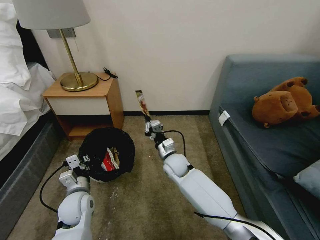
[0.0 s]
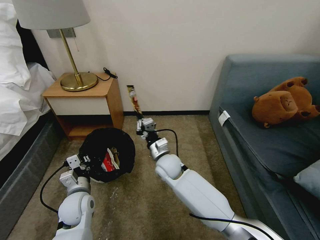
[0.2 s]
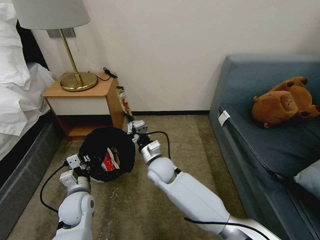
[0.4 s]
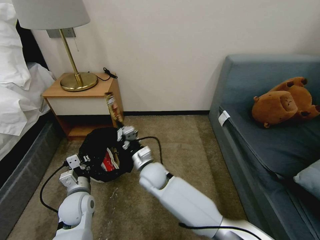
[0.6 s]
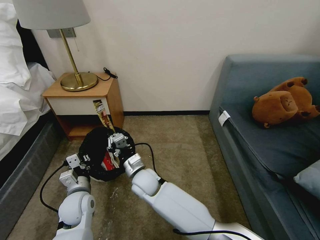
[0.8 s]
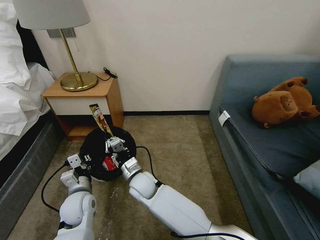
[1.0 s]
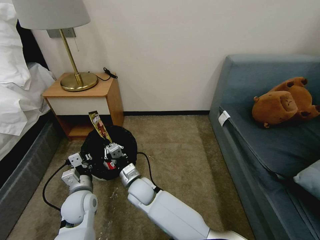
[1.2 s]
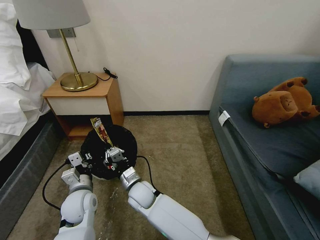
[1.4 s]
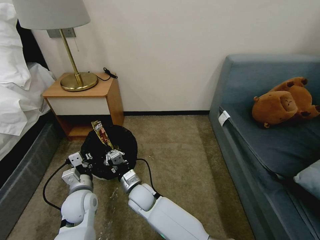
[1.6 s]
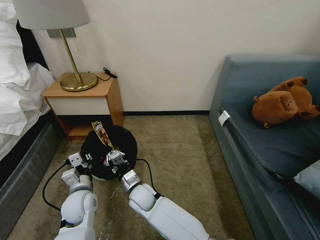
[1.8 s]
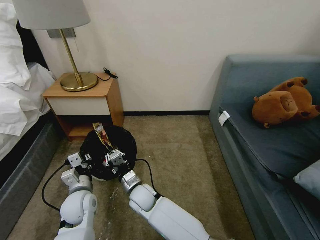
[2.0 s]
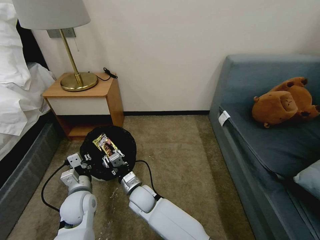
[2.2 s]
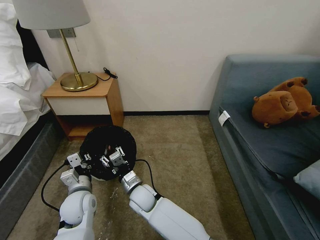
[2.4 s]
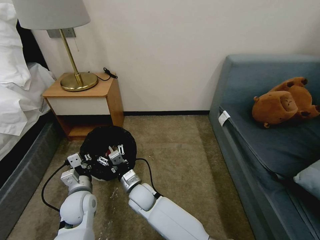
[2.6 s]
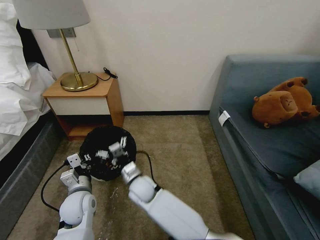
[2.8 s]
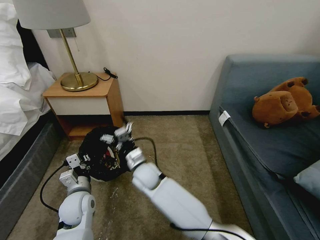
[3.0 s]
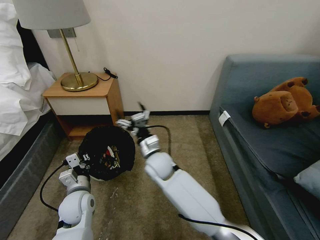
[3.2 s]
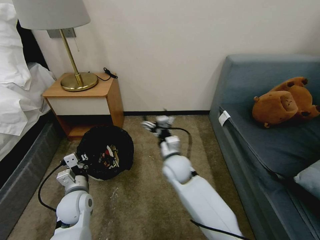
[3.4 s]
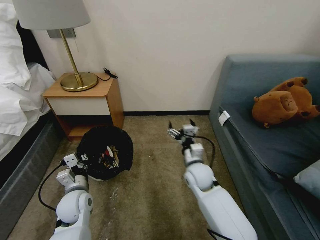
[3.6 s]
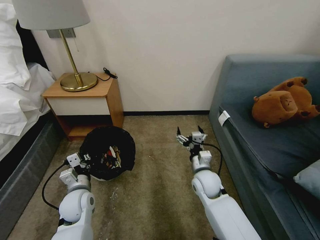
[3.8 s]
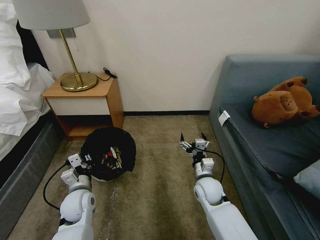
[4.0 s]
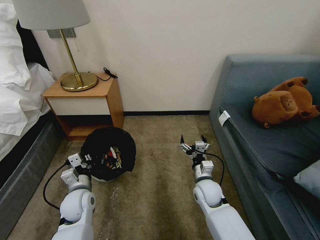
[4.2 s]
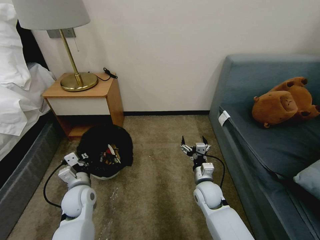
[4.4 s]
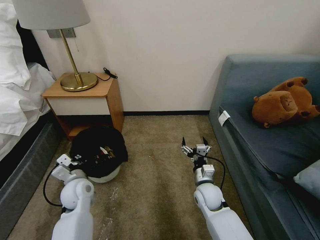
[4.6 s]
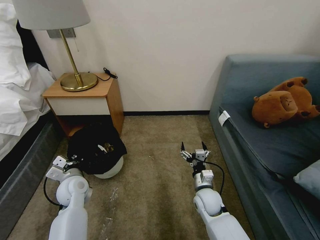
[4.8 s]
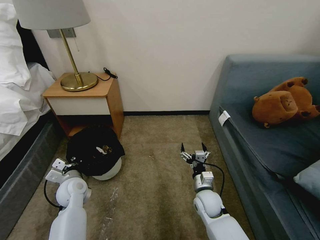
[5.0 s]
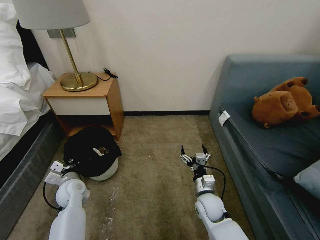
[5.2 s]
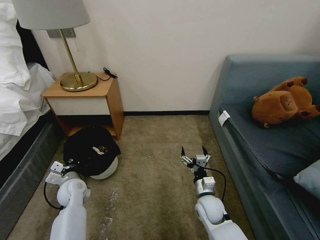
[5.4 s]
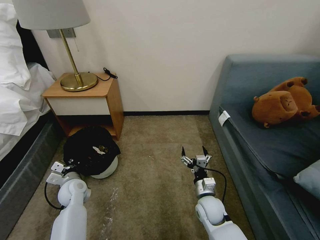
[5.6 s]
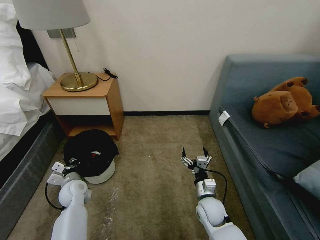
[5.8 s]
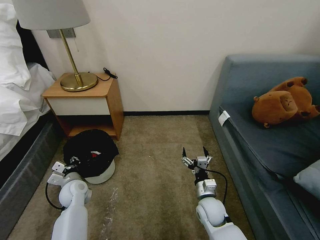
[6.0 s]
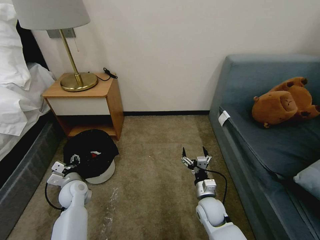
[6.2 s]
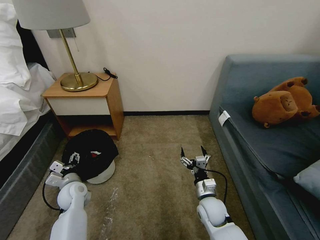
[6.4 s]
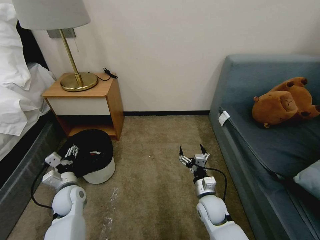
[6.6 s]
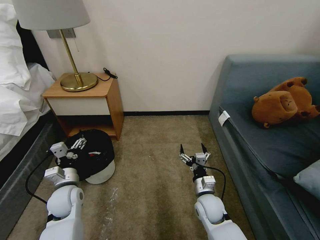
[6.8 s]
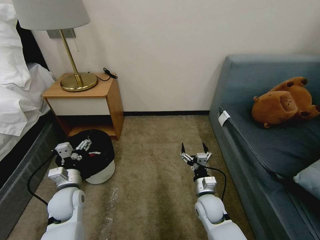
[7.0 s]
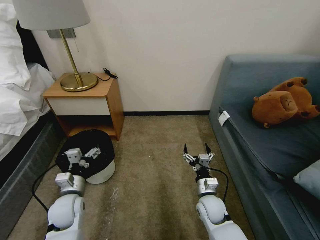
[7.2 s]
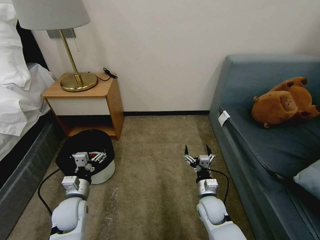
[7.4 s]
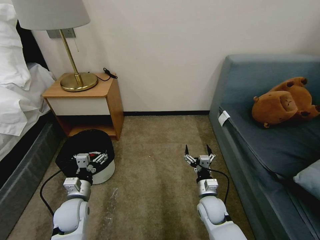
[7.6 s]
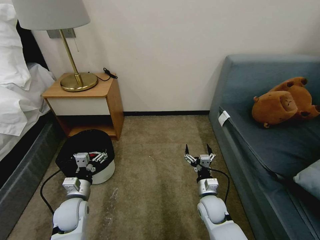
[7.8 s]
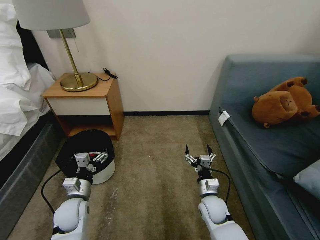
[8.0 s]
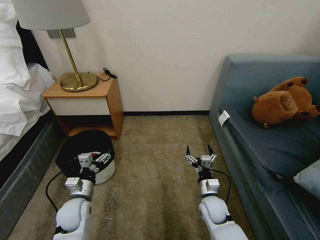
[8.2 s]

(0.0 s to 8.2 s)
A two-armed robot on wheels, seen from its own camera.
Task of the whole recording: Pick up the trash bin, then pick up the garbage on the floor and place it into the trash bin.
0.0 s - 1.6 s: The right gripper moves to the left and backward, about 15 cm.
1.6 s - 3.2 s: The right gripper travels upward, forward and to the right by roughly 15 cm, and opens.
3.2 s - 5.0 s: The left gripper shifts about 5 cm forward, while the right gripper travels to the right, downward and backward by approximately 25 cm.
5.0 s - 6.6 s: The left gripper opens.
6.6 s - 8.2 s: The left gripper moves some 5 cm.

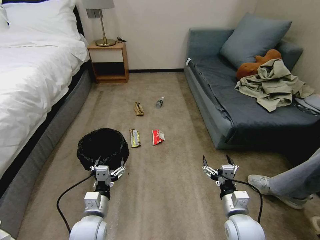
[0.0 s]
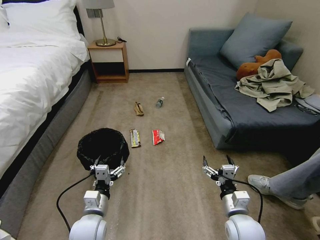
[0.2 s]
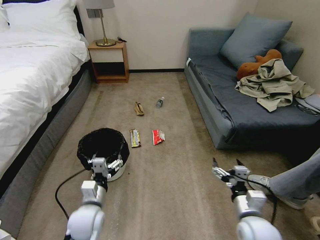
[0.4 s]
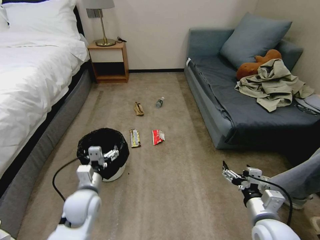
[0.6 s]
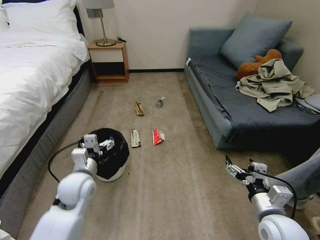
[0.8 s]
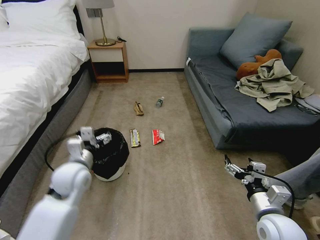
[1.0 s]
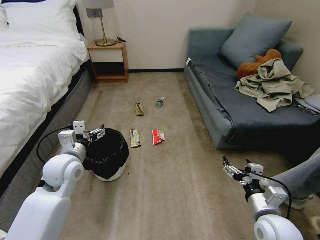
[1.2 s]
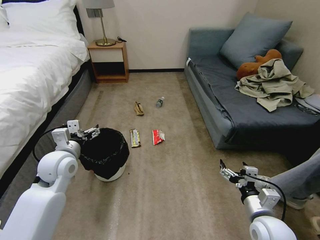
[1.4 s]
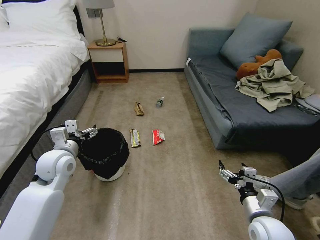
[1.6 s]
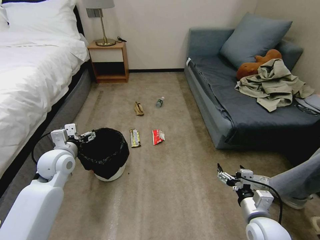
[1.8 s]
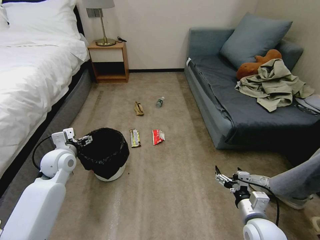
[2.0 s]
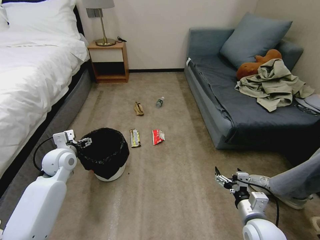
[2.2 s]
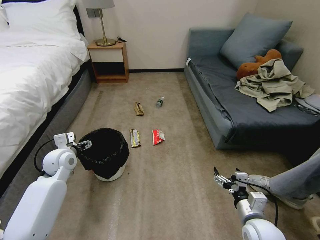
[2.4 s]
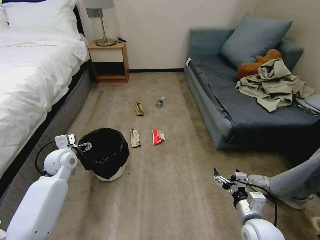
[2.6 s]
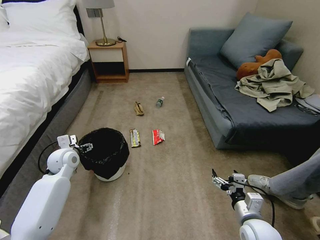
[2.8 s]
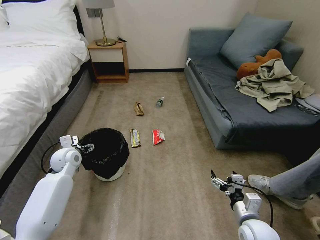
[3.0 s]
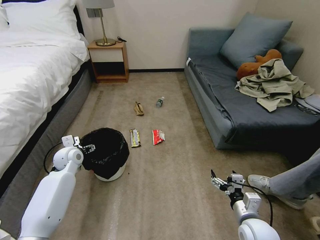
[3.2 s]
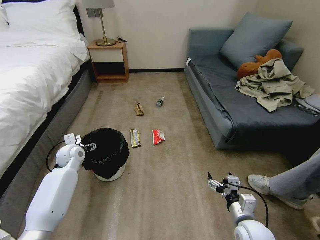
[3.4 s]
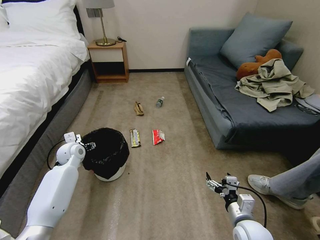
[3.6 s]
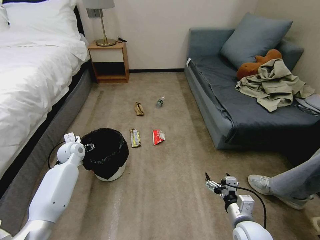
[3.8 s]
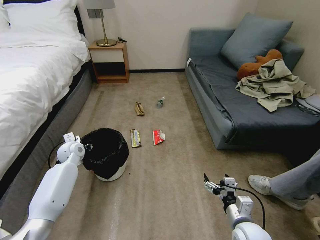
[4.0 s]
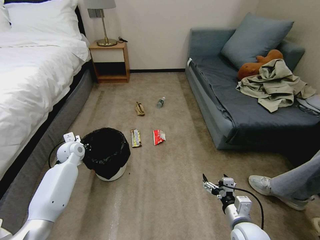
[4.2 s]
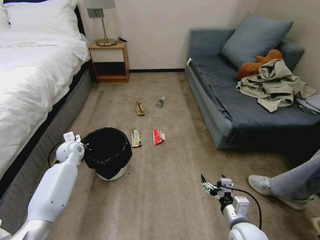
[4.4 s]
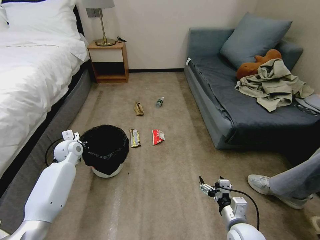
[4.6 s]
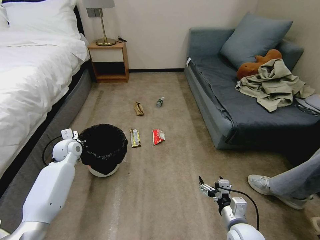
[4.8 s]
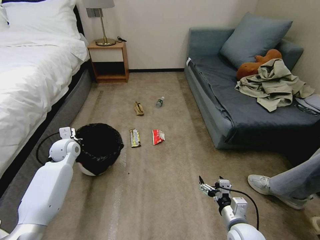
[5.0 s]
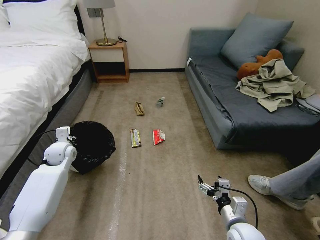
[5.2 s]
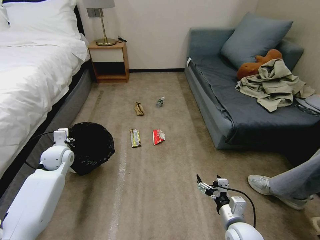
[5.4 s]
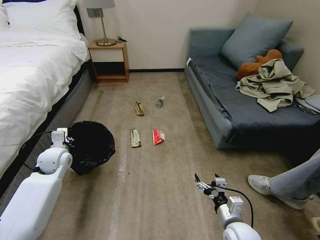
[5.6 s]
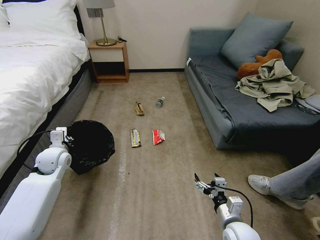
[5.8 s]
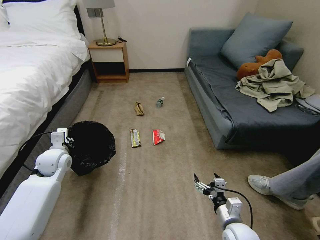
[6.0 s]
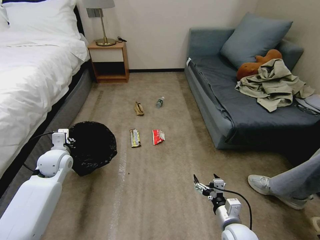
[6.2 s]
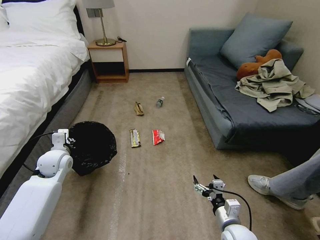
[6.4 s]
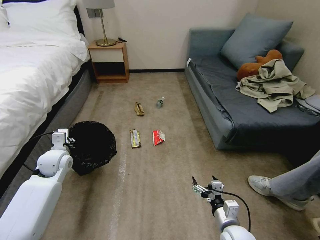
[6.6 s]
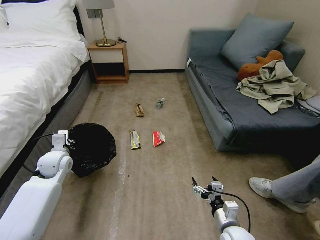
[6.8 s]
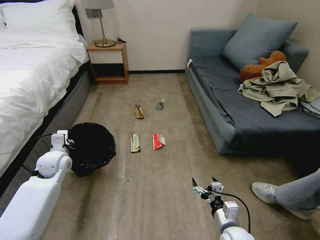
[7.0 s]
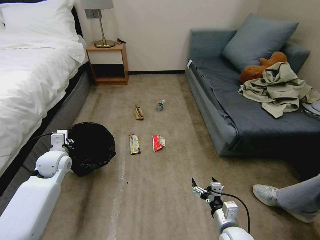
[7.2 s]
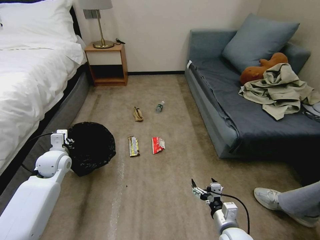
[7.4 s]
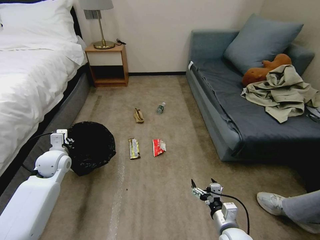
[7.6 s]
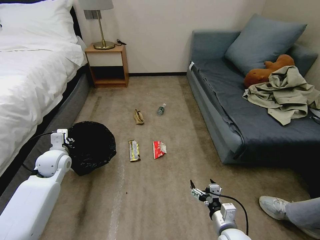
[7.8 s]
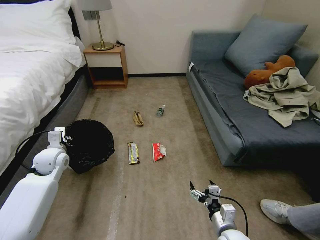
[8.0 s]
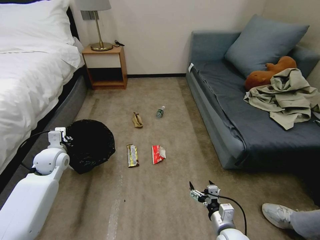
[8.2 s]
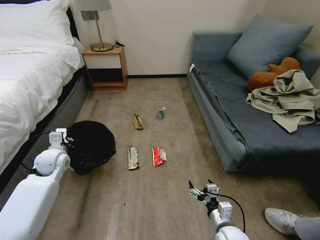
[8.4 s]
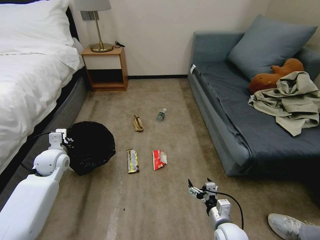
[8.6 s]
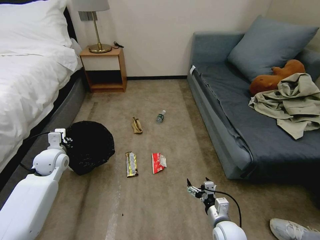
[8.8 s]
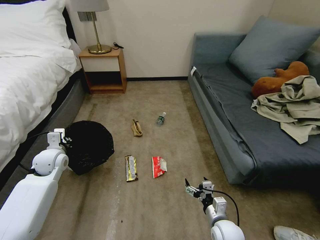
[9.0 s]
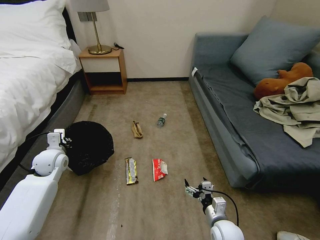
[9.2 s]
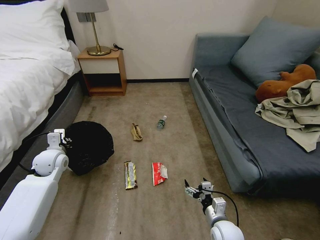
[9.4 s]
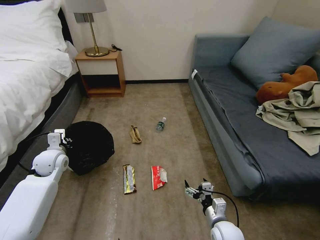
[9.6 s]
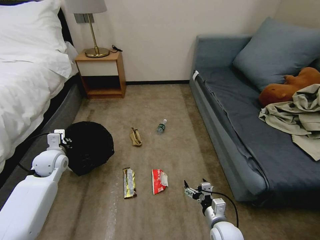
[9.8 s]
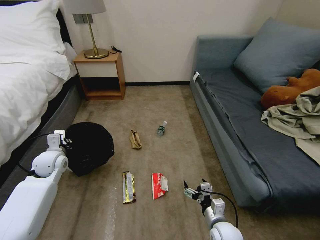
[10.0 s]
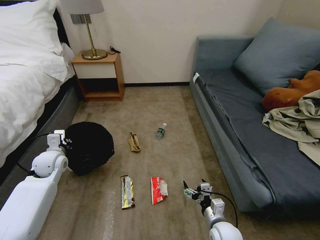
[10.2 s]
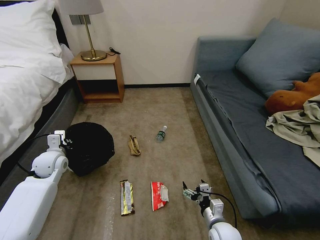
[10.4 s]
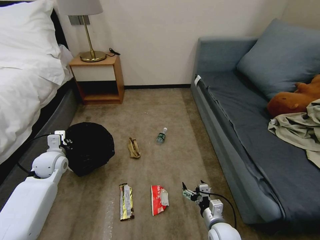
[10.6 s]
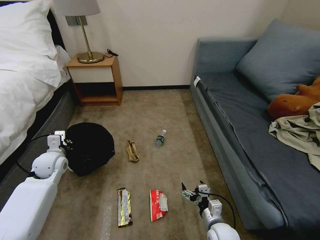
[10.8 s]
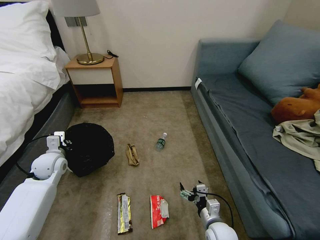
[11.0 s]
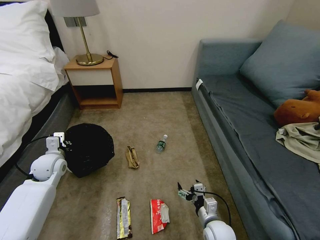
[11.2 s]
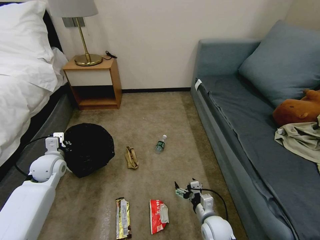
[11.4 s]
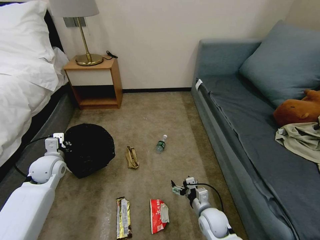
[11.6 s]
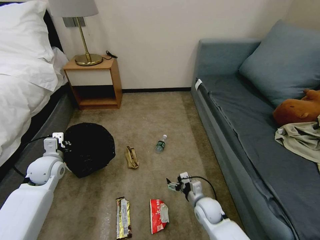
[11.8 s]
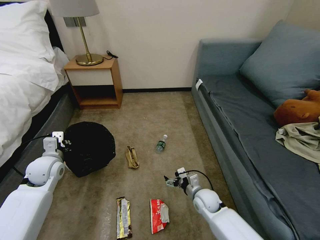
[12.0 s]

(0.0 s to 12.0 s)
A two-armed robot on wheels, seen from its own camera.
Task of the whole recording: Pick up the trash bin, then pick up the garbage on the floor and place it into the trash bin.
1.6 s - 3.0 s: The left gripper travels downward and forward by approximately 10 cm.
3.0 s - 4.4 s: The left gripper moves some 5 cm, and closes.
4.4 s - 6.0 s: The left gripper travels backward by about 5 cm.
10.4 s - 12.0 s: The right gripper shifts some 10 cm forward.

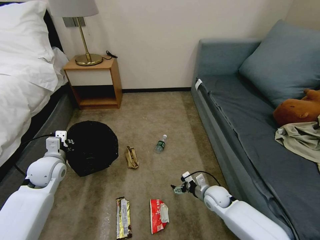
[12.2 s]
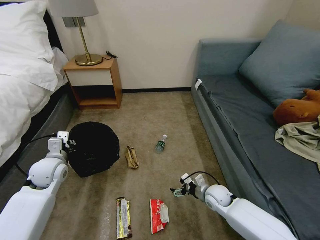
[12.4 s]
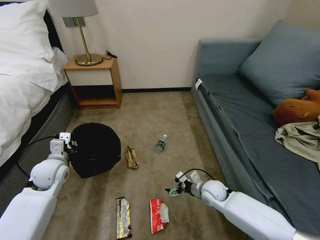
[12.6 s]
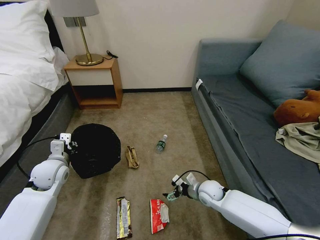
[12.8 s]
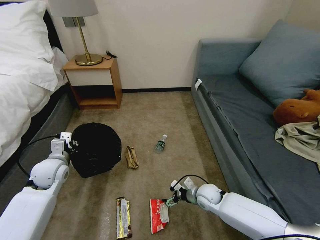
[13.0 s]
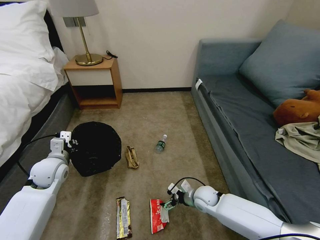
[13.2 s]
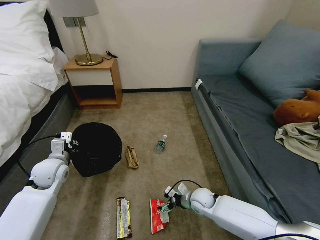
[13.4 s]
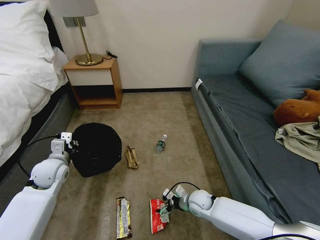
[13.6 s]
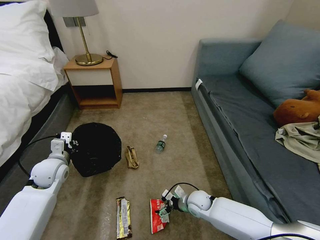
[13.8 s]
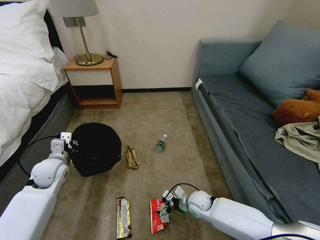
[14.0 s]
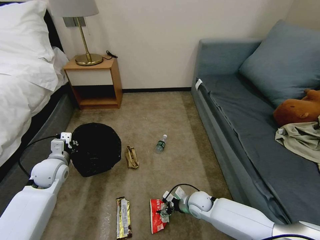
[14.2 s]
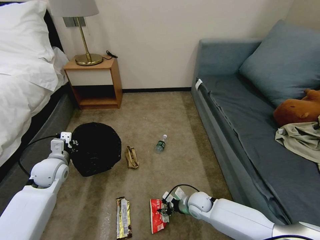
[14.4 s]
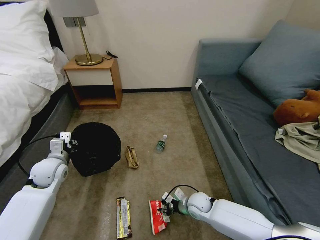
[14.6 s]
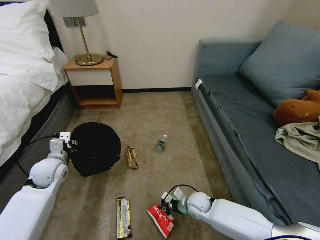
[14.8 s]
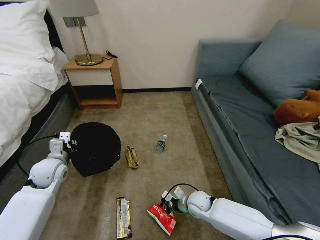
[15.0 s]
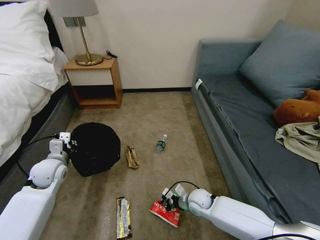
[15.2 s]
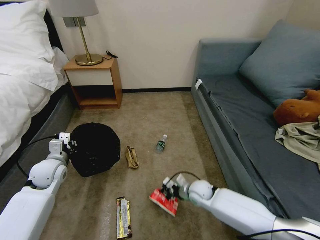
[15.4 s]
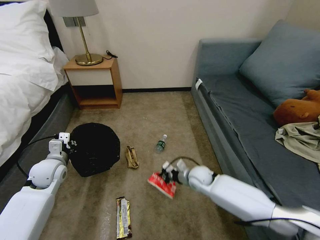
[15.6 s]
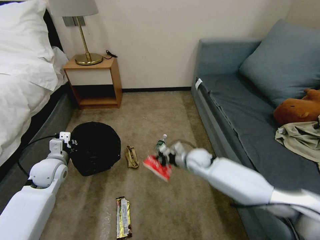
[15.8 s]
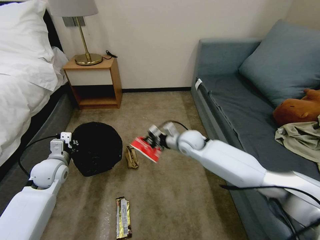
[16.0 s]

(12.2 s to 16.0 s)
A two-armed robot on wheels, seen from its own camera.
Task of the whole recording: Pick up the trash bin, then pick up the garbage on the floor and place it into the trash bin.
13.4 s - 14.8 s: The right gripper closes up.
14.8 s - 16.0 s: The right gripper goes roughly 30 cm upward and forward.
